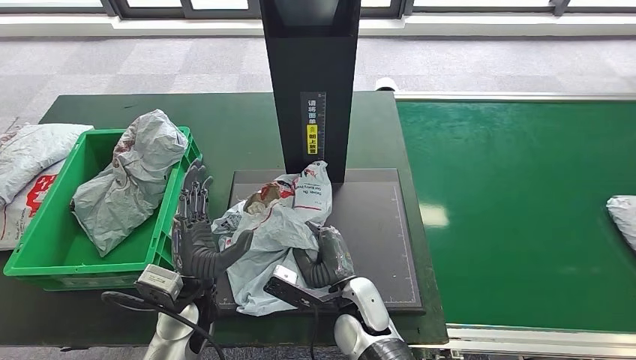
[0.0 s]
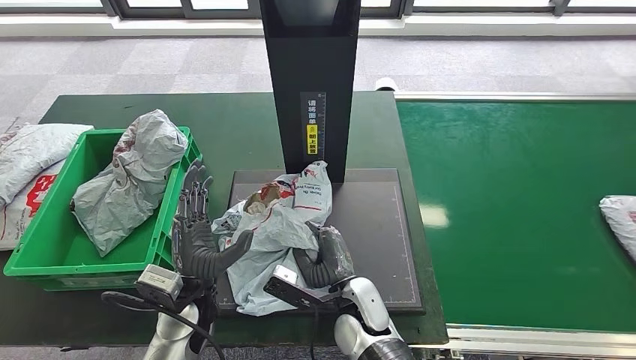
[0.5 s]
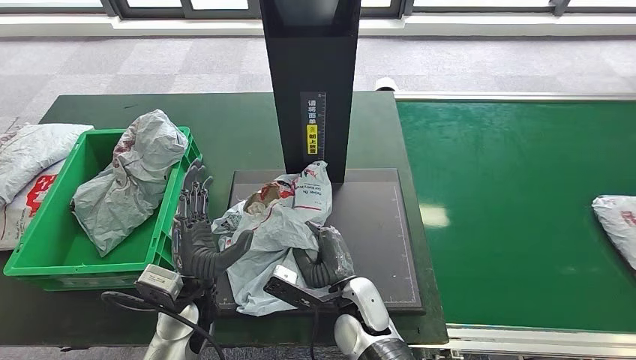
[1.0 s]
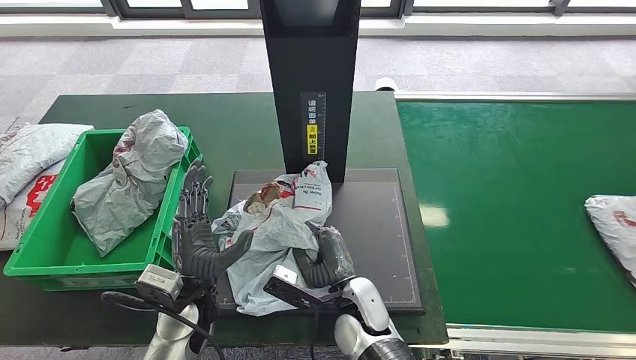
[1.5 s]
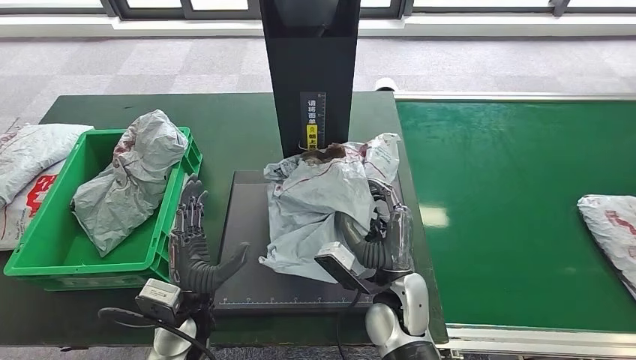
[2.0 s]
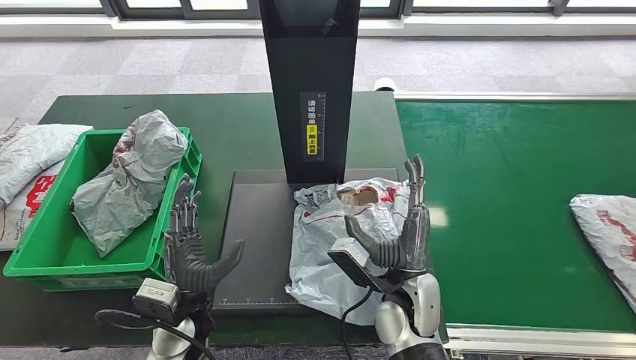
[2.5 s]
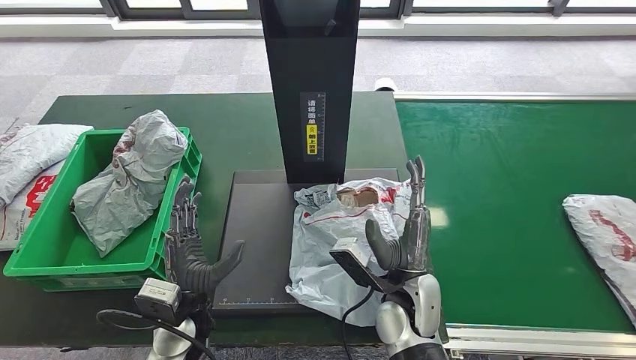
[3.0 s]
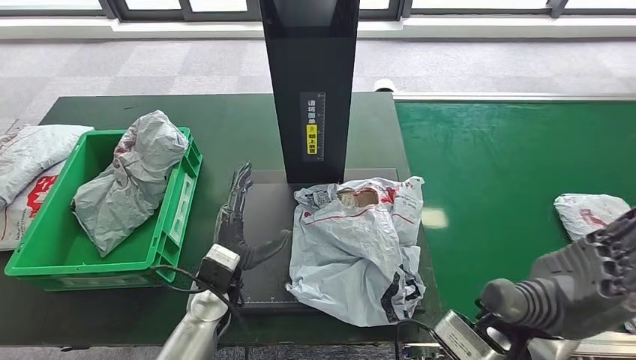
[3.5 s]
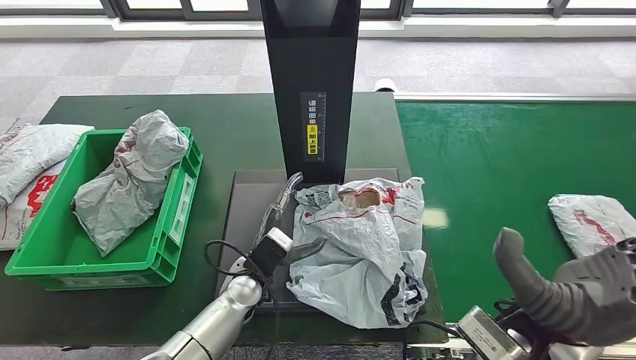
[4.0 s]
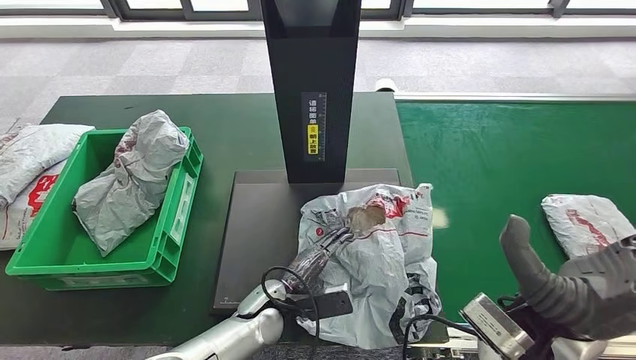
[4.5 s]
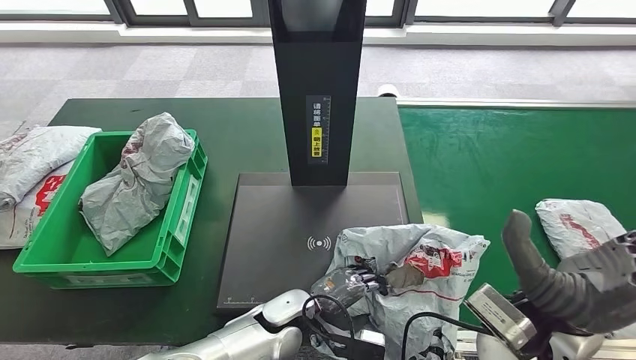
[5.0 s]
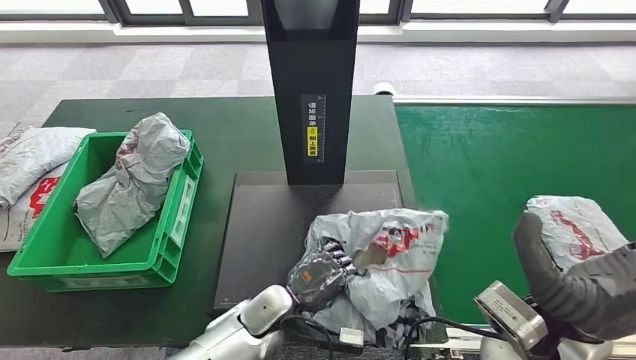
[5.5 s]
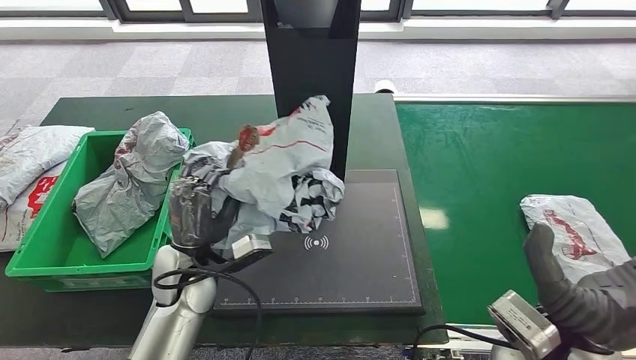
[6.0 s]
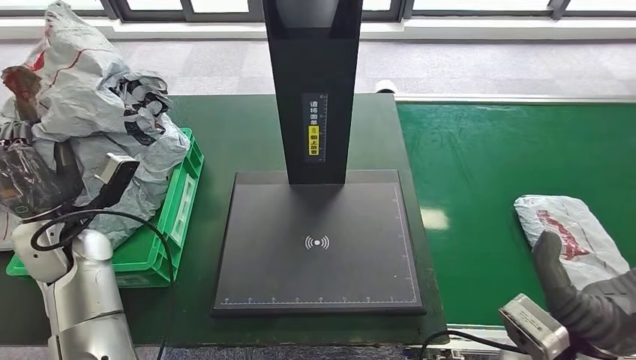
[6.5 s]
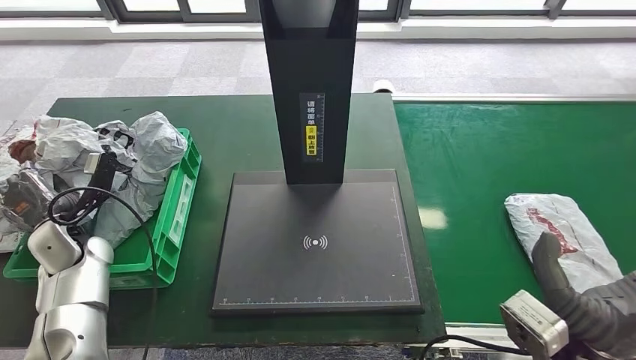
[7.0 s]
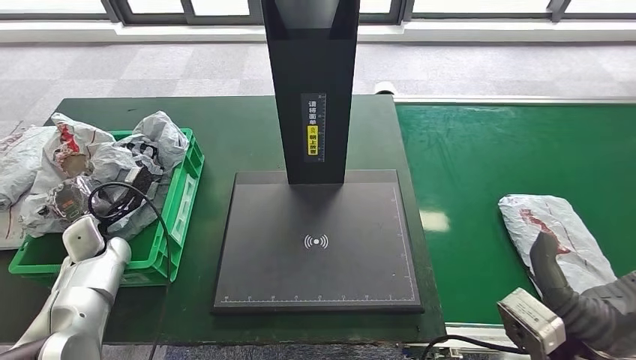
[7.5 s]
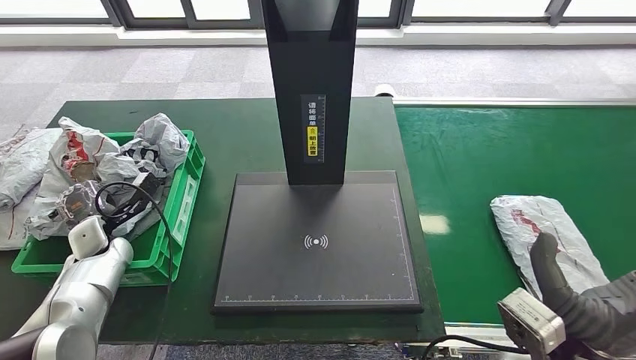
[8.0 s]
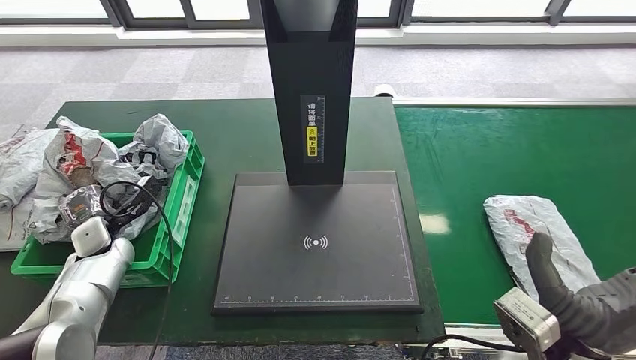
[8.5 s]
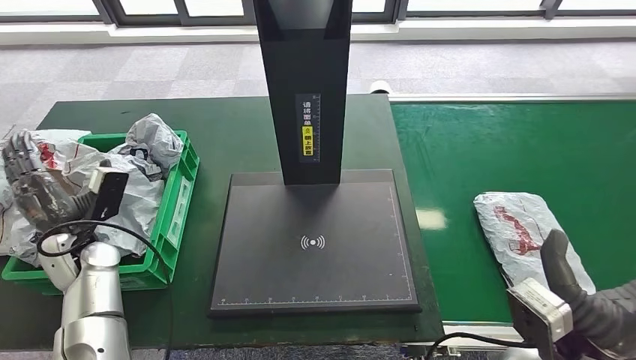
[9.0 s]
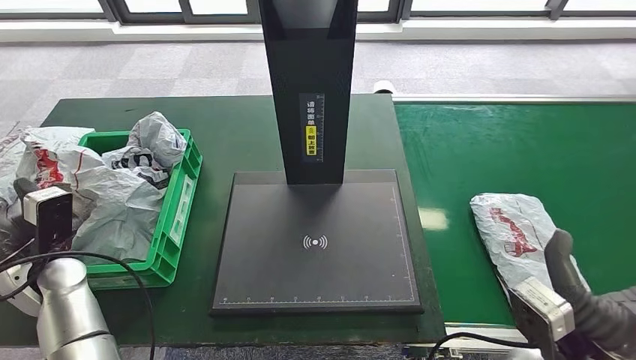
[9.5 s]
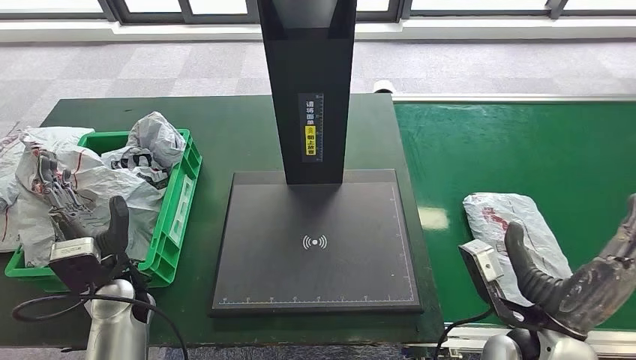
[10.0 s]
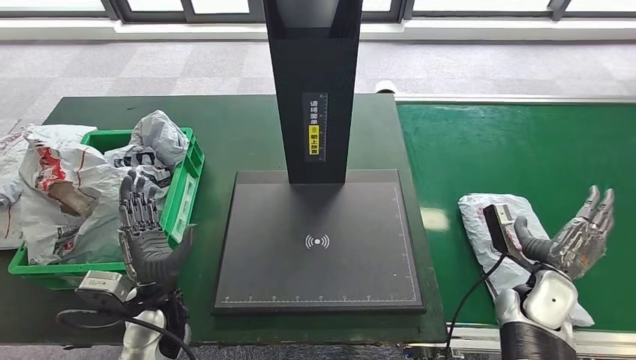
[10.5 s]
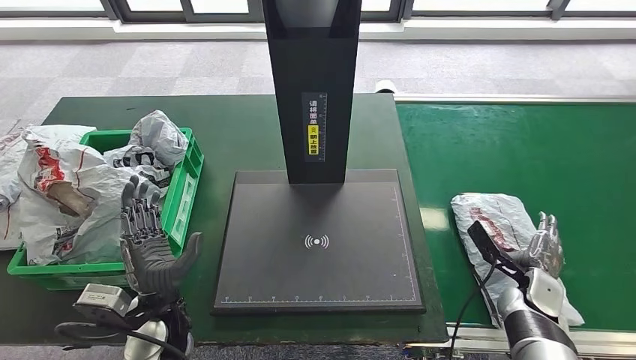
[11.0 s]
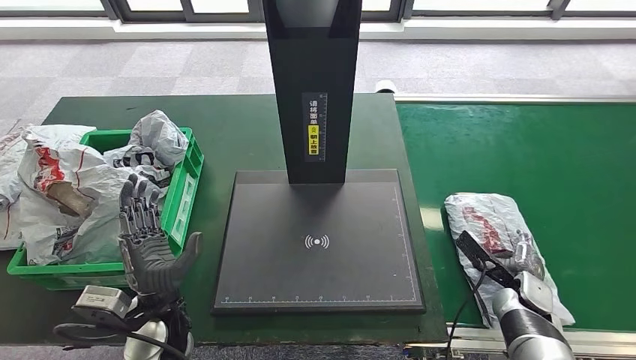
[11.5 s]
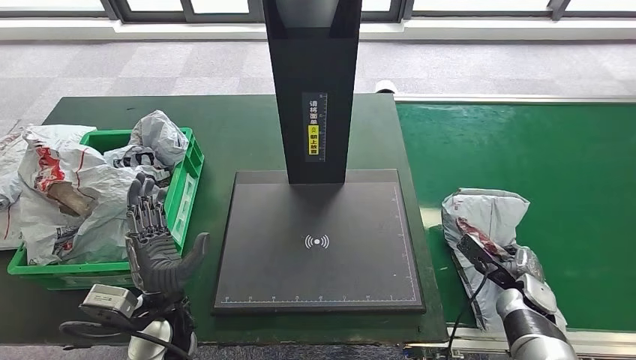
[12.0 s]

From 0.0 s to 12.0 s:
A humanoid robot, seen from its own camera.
Step, from 5.0 s to 6.5 s: Pick up the parcel from the inbound machine.
Step, from 7.0 s to 10.0 s: Place the parcel into the delivery box.
From 0.0 s to 2.0 s: The right hand is displaced to the right by about 5 cm.

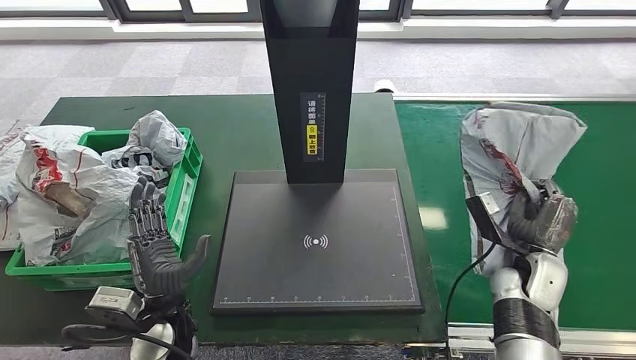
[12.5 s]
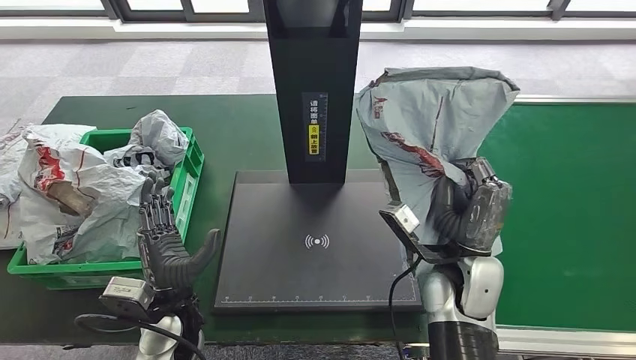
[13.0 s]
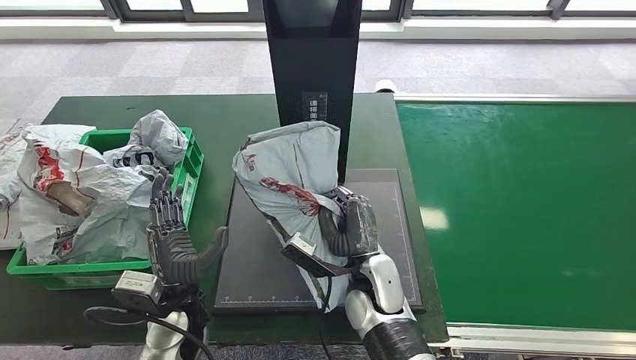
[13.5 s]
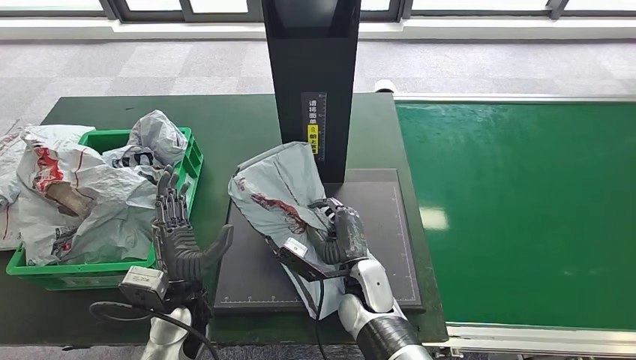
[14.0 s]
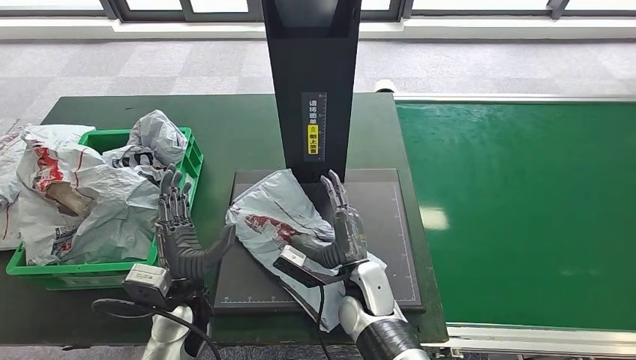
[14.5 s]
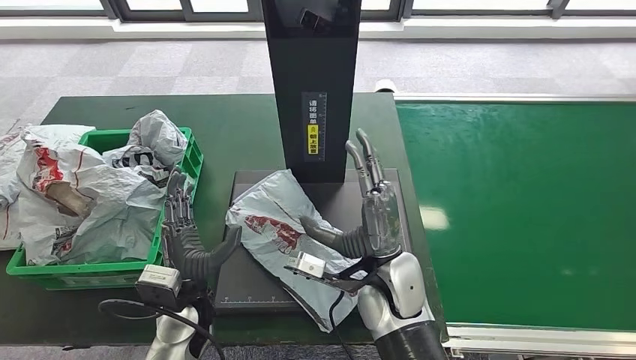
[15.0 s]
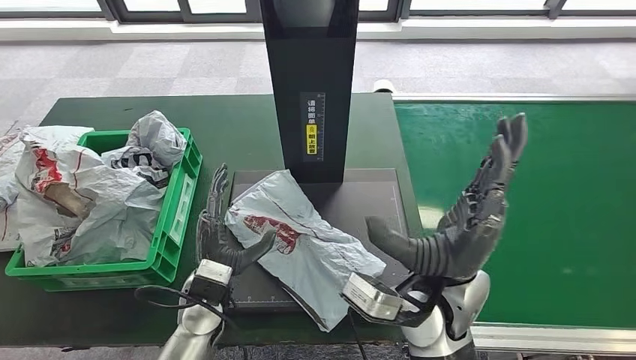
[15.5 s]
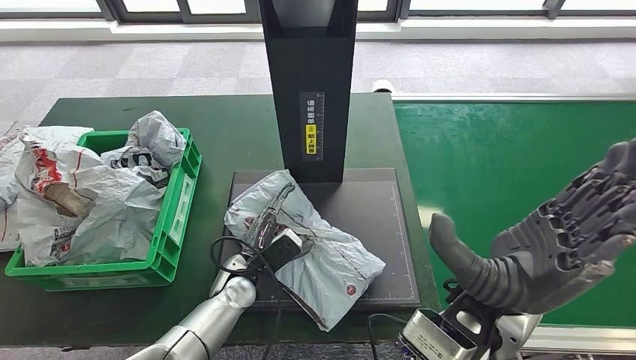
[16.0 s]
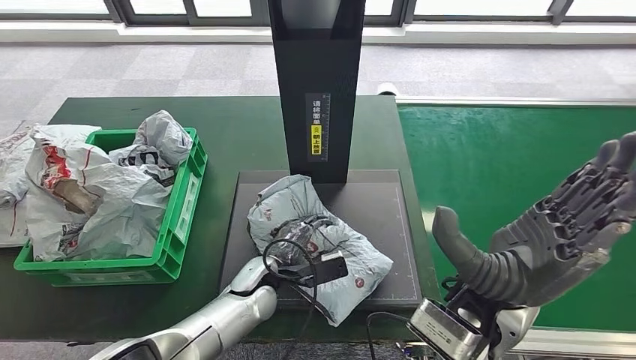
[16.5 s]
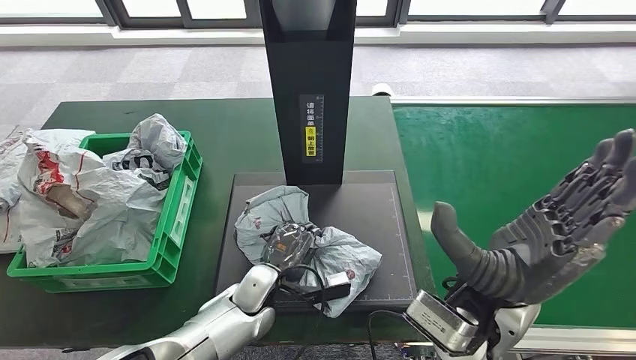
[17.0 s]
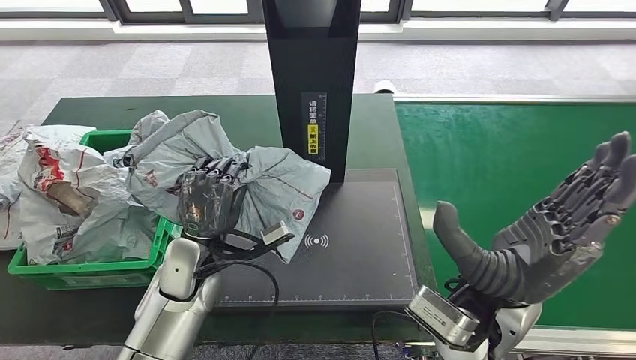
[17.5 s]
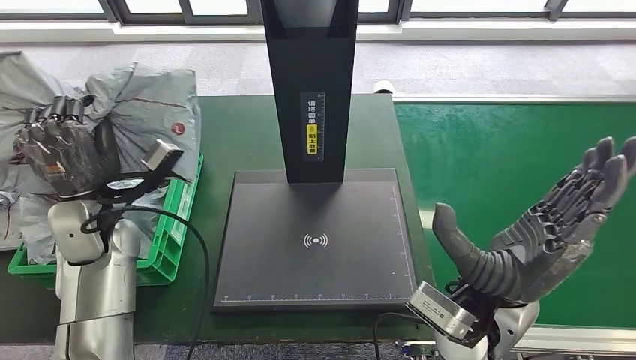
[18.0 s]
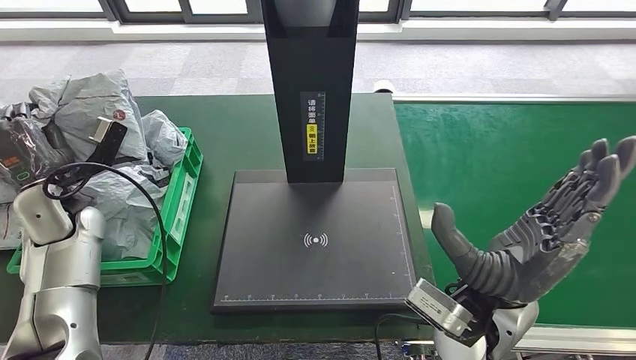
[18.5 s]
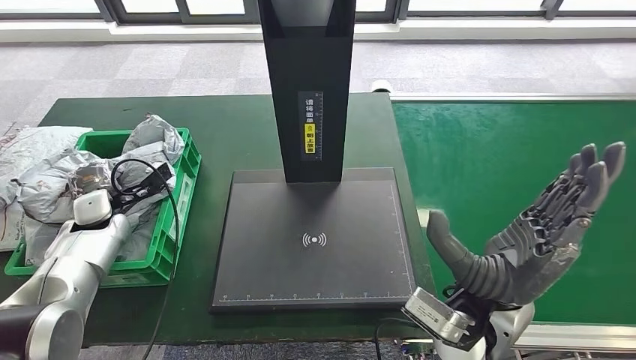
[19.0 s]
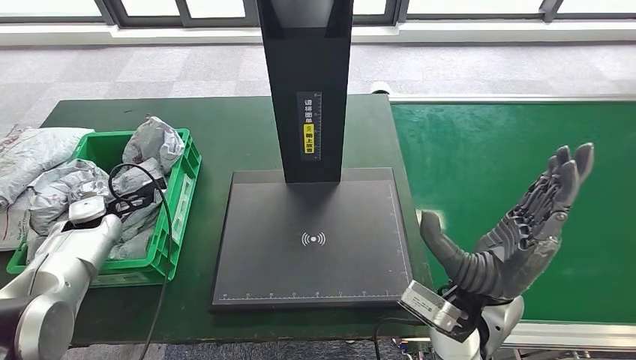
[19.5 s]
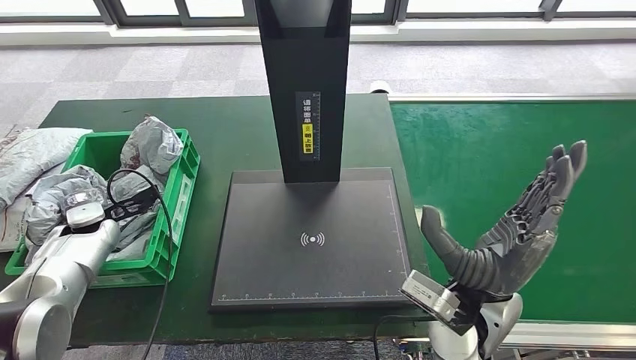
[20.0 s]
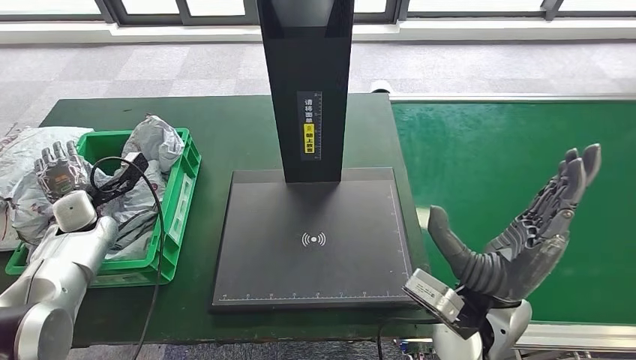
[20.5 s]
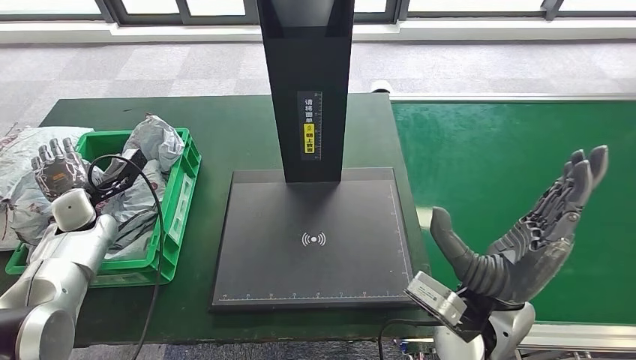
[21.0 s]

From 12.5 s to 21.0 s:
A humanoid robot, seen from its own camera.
Step, from 13.5 s to 15.5 s: Place the parcel onto the inbound machine.
Step, from 16.0 s to 18.0 s: Pick up the parcel from the inbound machine.
Step, from 19.0 s to 21.0 s: Place the parcel into the delivery box.
